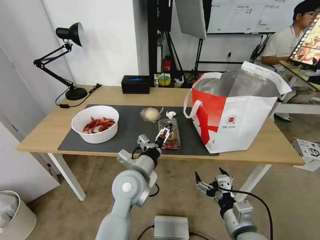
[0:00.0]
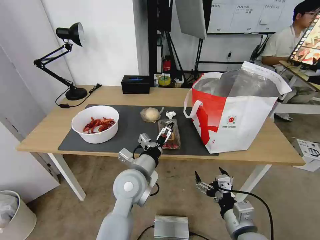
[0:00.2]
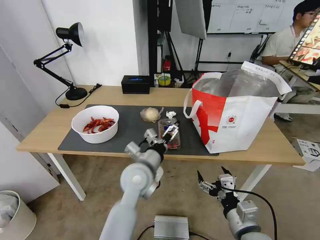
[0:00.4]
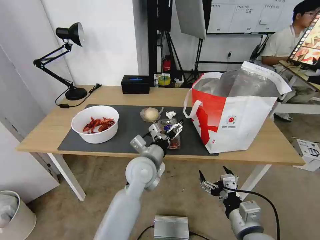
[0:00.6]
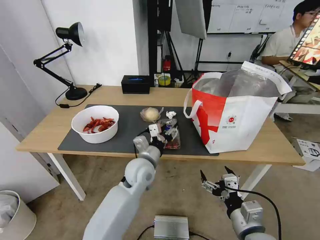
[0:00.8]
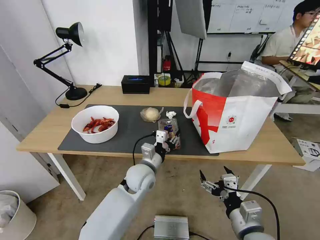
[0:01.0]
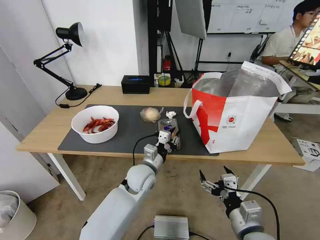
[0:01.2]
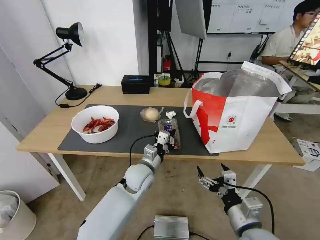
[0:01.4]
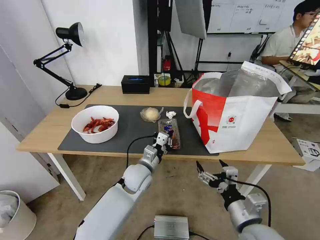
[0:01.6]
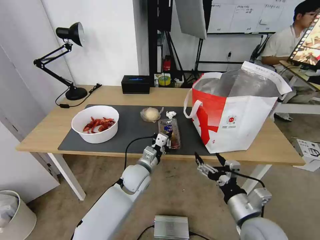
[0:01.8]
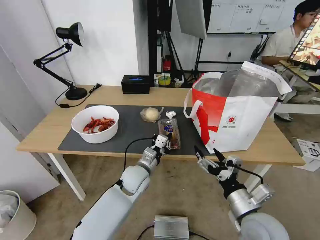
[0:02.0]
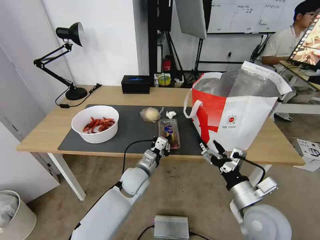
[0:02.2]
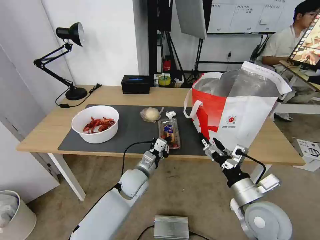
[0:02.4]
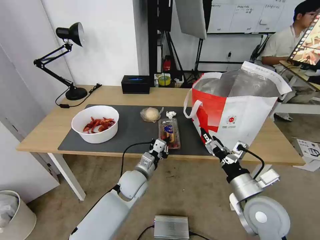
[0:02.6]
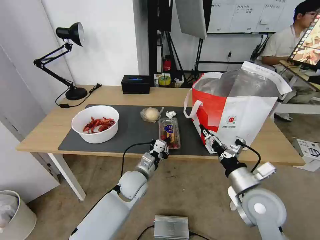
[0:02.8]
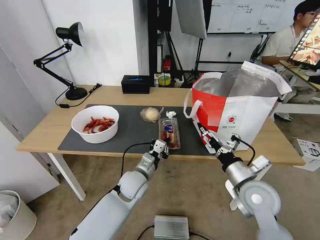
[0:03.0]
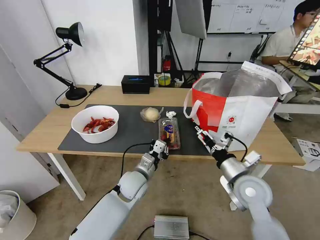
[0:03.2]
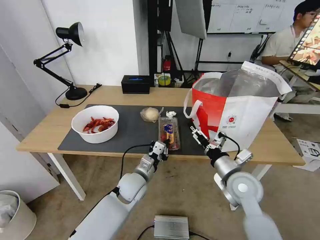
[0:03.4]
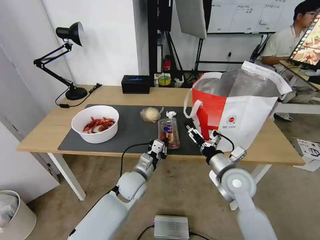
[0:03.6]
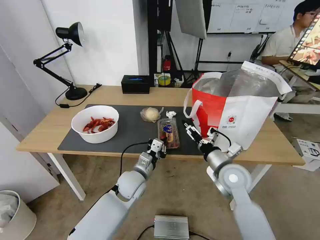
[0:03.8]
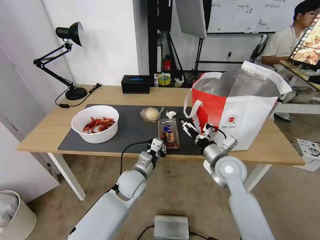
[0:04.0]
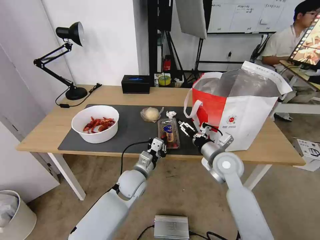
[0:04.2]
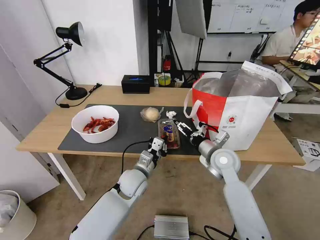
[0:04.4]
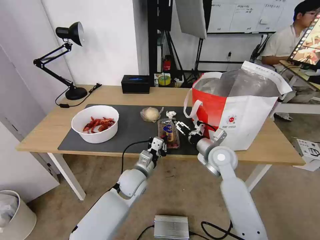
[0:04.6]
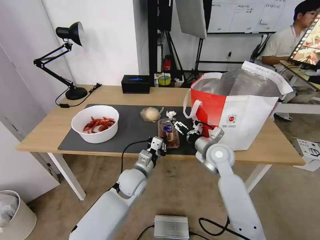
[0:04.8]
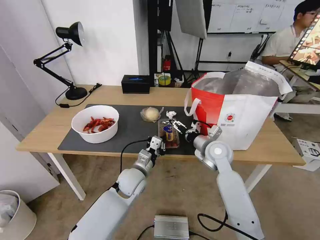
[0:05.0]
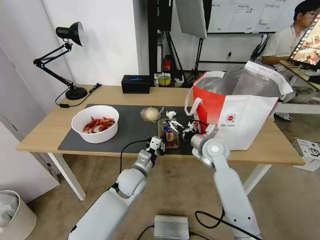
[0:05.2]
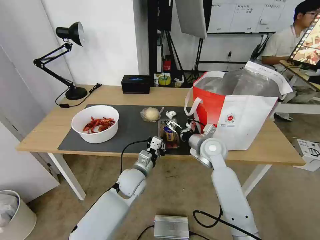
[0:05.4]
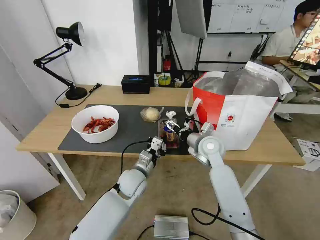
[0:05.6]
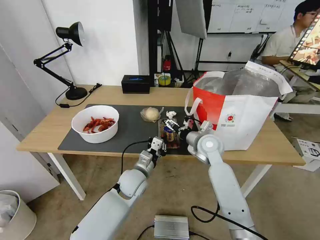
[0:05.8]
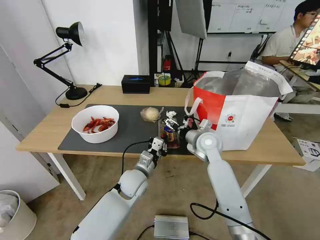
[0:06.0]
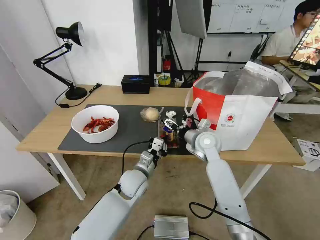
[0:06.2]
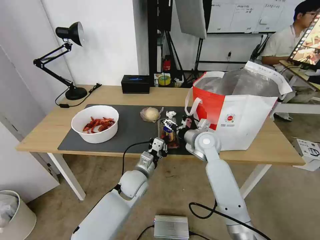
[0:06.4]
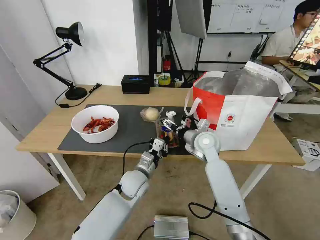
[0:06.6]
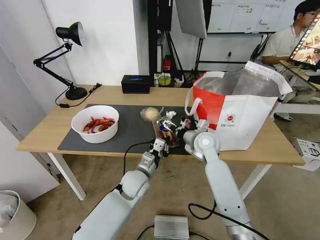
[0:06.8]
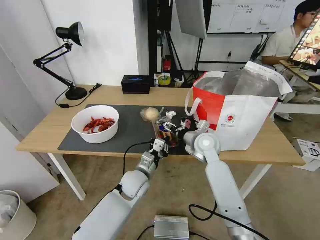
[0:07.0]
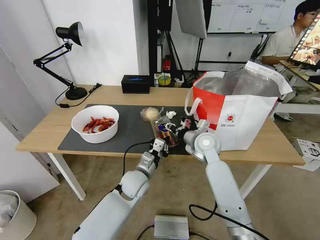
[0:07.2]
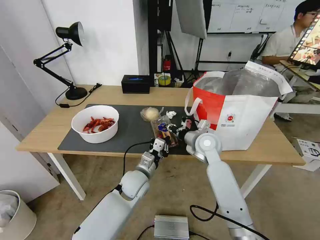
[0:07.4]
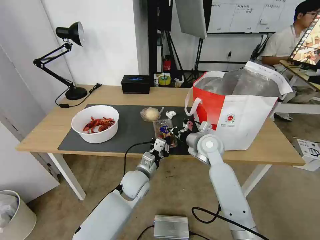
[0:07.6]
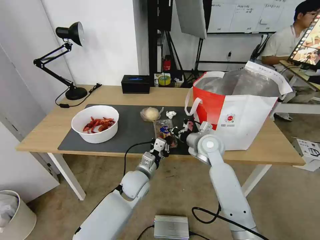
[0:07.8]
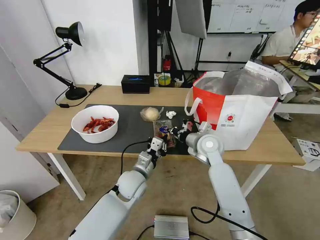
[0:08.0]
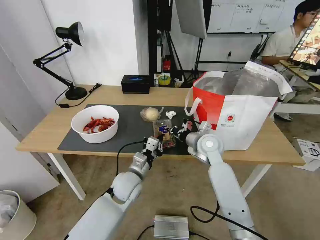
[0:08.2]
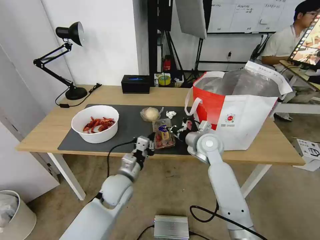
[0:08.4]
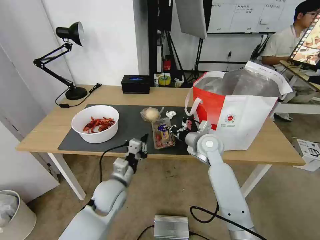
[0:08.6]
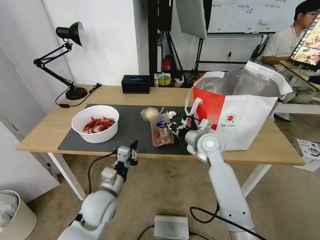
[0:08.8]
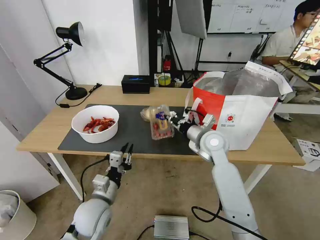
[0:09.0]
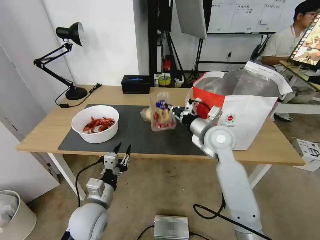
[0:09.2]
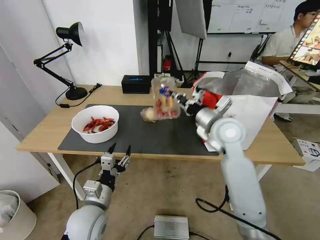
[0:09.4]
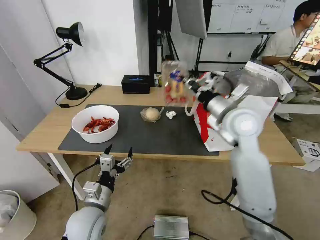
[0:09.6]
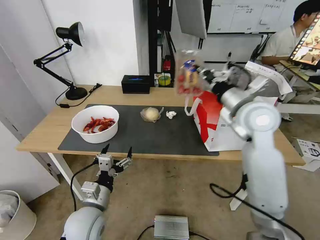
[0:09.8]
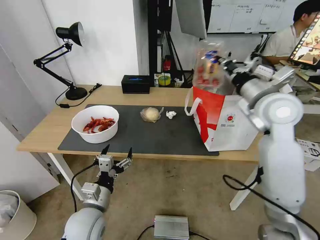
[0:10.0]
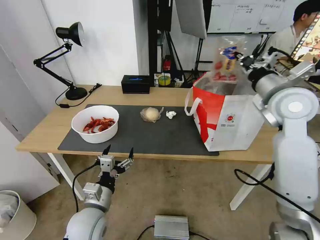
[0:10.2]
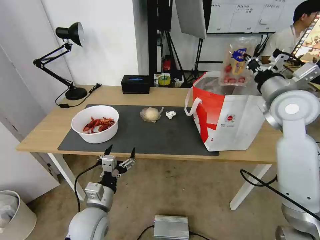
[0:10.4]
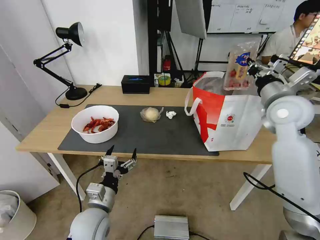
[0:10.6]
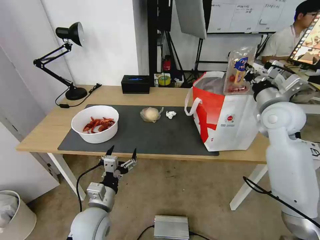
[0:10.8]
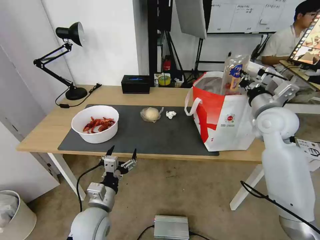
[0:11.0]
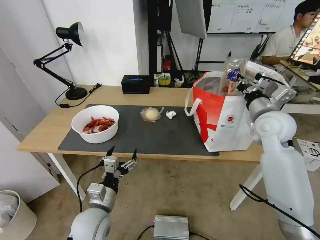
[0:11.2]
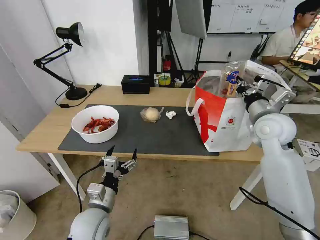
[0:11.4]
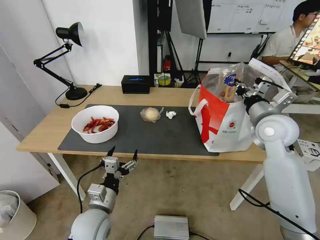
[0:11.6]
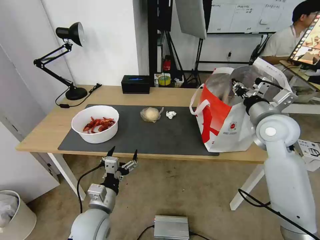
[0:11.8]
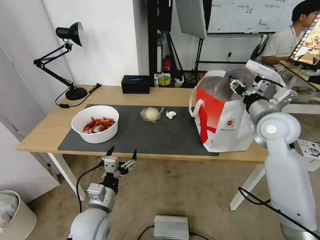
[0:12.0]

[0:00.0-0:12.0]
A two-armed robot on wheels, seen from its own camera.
Task of the whole recording: Pick up the trash from the table and place it into the takeout bag.
0:00.0 to 0:01.6: The left gripper travels downward and forward by approximately 10 cm, and closes up.
0:01.6 to 0:03.0: The right gripper travels forward by roughly 10 cm.
0:03.0 to 0:04.4: The right gripper travels forward by roughly 10 cm.
0:04.4 to 0:06.0: The right gripper goes about 5 cm forward.
0:06.0 to 0:07.6: The right gripper closes its fingers.
0:07.6 to 0:09.0: The left gripper shifts about 15 cm to the left and backward.
0:09.0 to 0:10.4: The left gripper opens up, while the right gripper heads upward and to the right, covering about 25 cm.
0:10.4 to 0:12.0: The right gripper heads downward, covering approximately 5 cm, and opens its fingers.

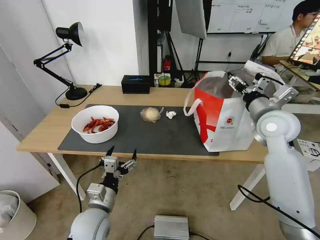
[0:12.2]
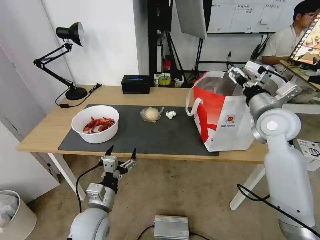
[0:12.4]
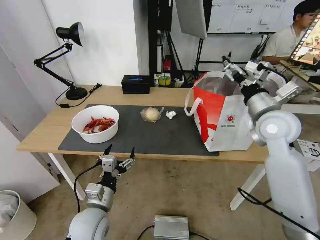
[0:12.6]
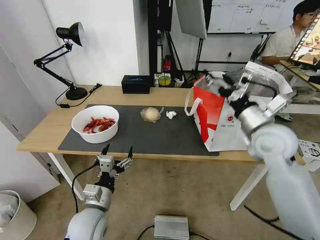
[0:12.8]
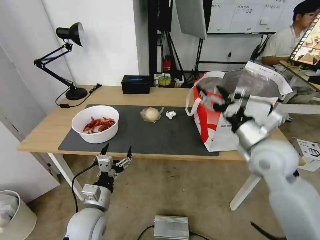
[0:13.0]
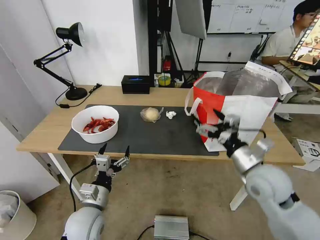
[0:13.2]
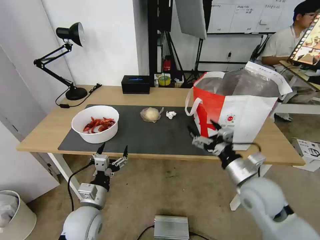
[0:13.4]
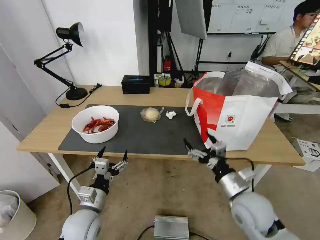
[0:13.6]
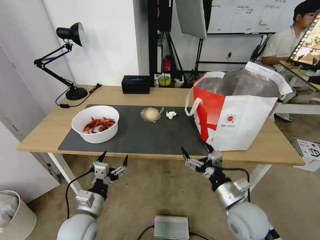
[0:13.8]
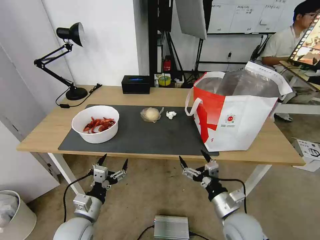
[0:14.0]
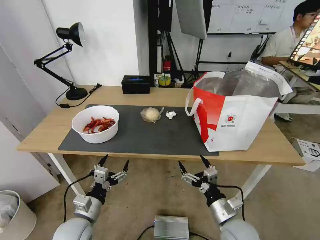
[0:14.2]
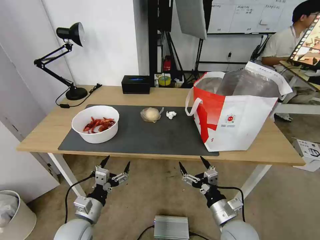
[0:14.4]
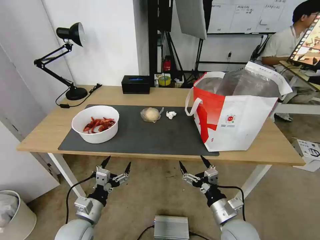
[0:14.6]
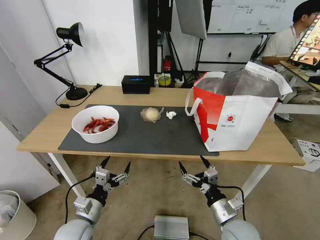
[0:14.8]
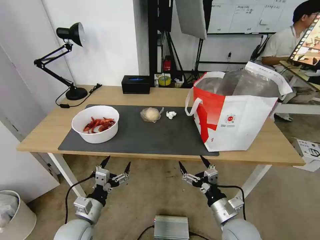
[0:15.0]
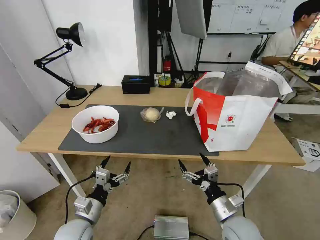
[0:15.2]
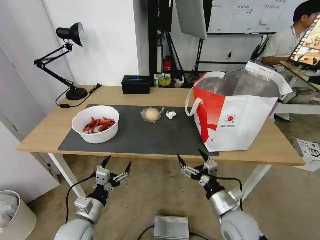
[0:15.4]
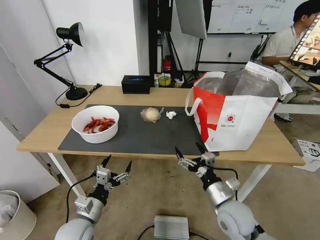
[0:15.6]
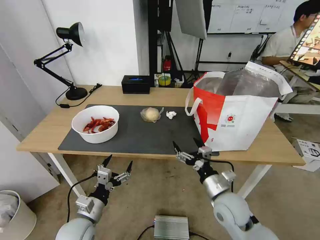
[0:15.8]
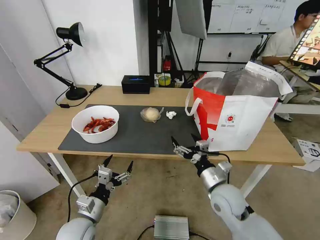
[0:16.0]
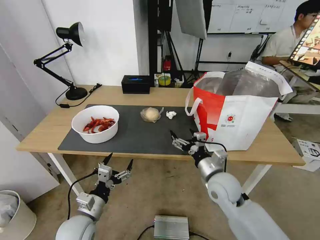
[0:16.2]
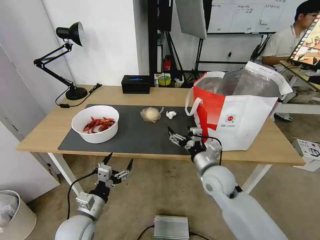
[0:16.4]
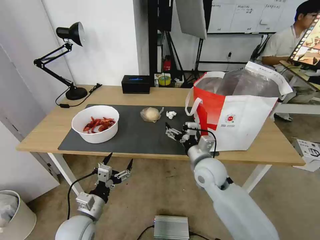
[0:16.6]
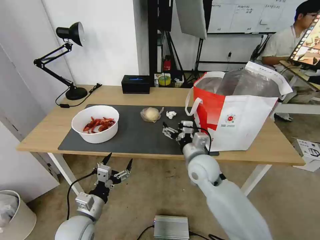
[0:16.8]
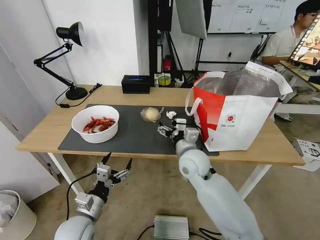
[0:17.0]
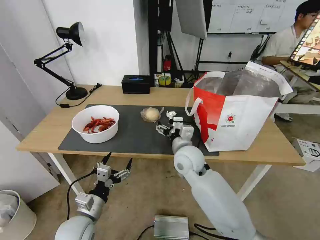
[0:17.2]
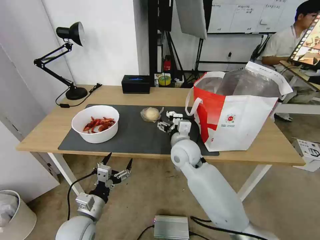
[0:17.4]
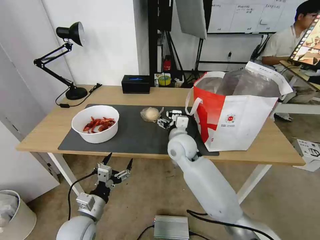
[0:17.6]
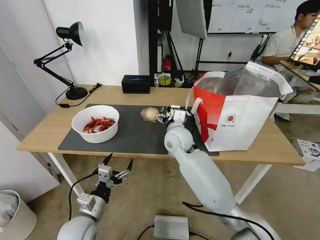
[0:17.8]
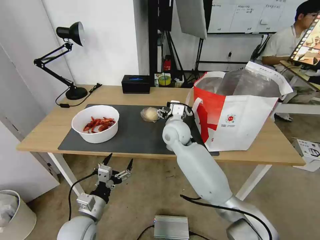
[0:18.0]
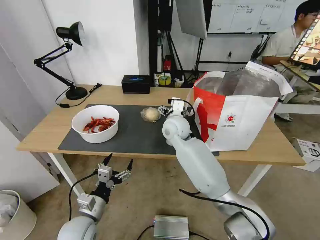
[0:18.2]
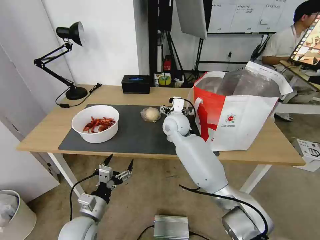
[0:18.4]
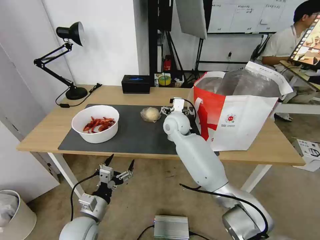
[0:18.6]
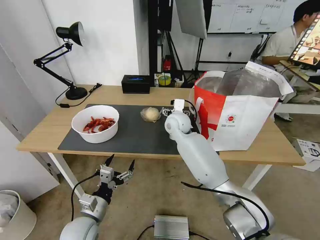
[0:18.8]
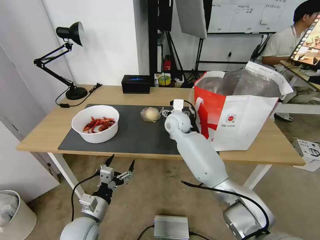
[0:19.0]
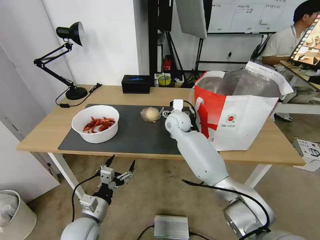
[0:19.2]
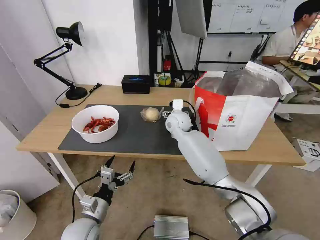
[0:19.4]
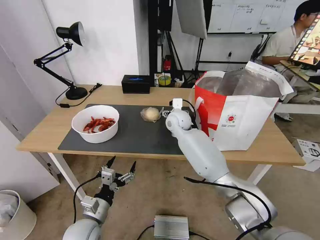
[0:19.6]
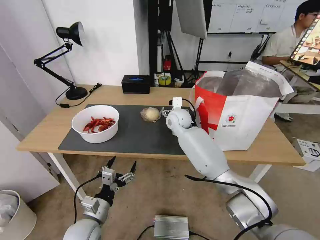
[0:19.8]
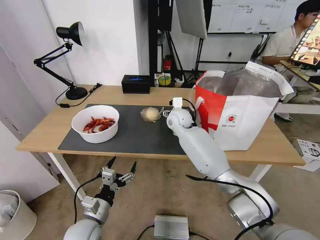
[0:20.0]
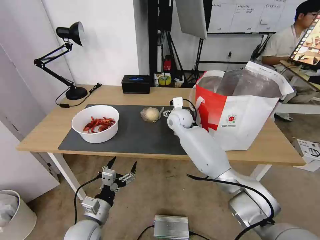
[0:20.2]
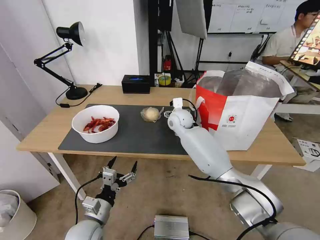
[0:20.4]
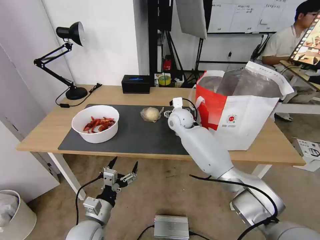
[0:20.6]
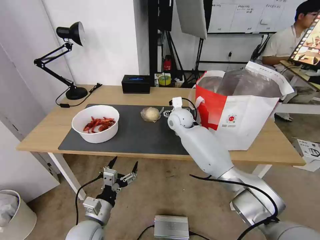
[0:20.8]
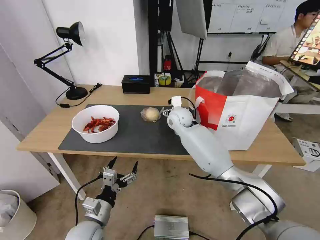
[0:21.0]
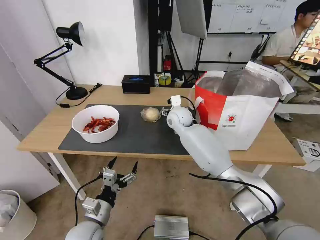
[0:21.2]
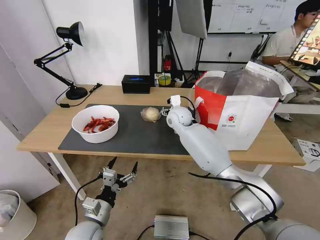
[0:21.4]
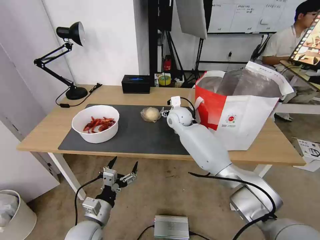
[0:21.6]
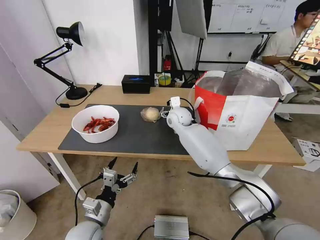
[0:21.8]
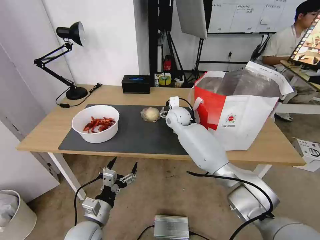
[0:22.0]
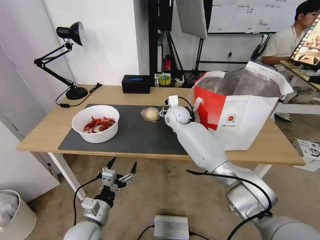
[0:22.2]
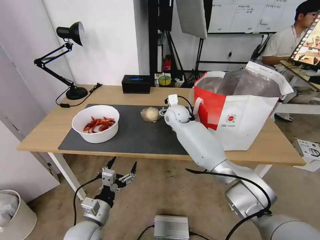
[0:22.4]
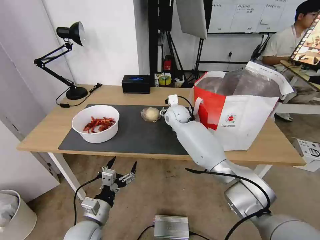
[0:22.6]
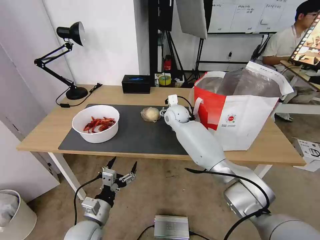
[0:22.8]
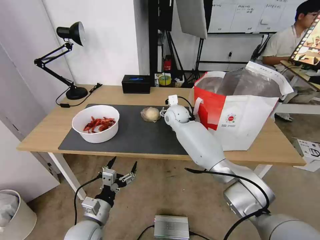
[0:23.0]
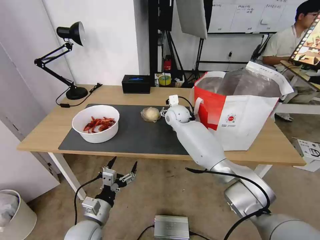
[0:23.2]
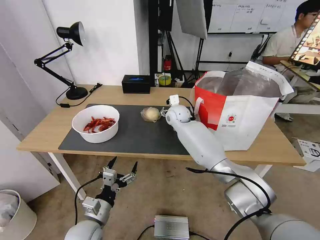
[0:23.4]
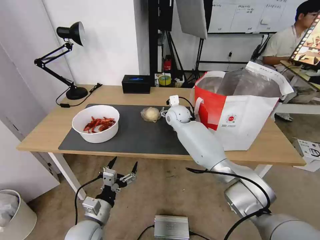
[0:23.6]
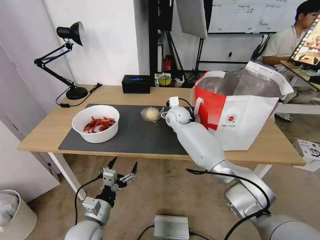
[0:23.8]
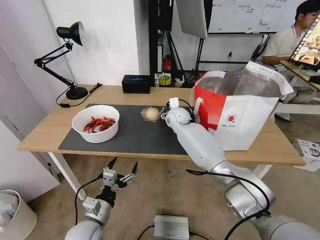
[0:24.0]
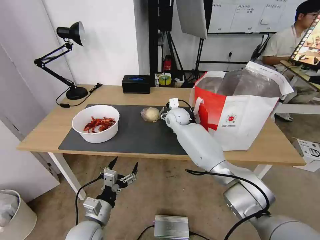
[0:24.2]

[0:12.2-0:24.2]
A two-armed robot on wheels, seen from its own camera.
Task of the whole recording: Pick up the trash from the table and place it into the takeout bag.
0:12.2 to 0:13.8: The right gripper heads downward, backward and to the left, covering roughly 30 cm, while the left gripper ends up approximately 5 cm from where it was.
0:13.8 to 0:15.2: There are only small adjustments of the grippers.
0:15.2 to 0:16.6: The right gripper is displaced forward, upward and to the left by roughly 20 cm.
0:16.6 to 0:18.2: The right gripper goes some 20 cm forward, to the left and upward.
0:18.2 to 0:19.8: The right gripper shifts some 5 cm forward.
0:19.8 to 0:24.2: The grippers stay close to where they were, moving slightly.
